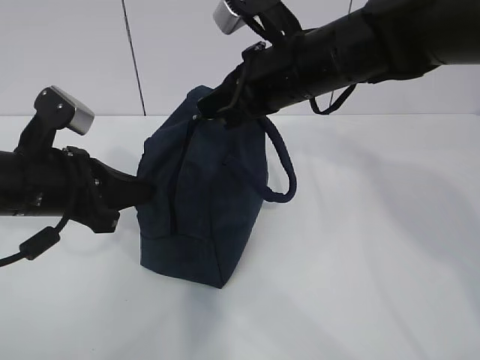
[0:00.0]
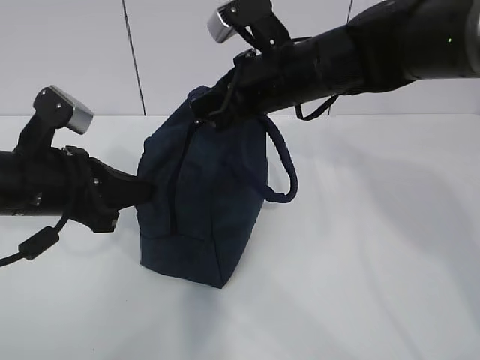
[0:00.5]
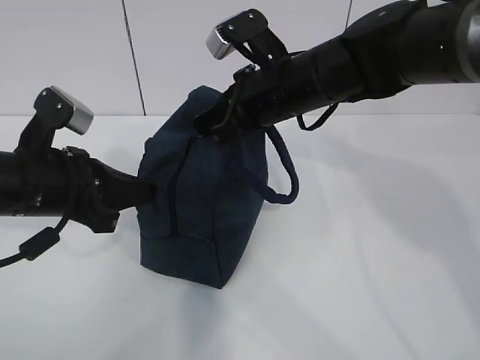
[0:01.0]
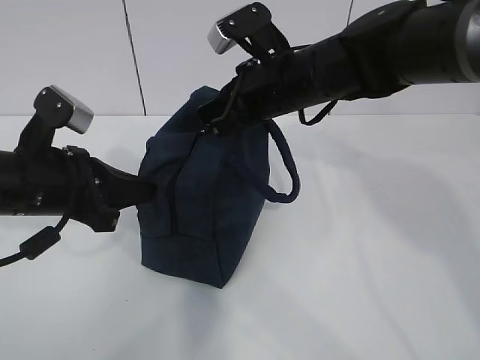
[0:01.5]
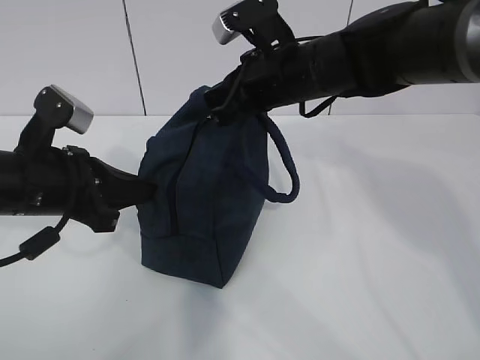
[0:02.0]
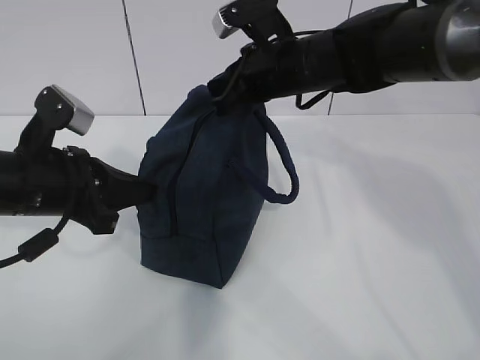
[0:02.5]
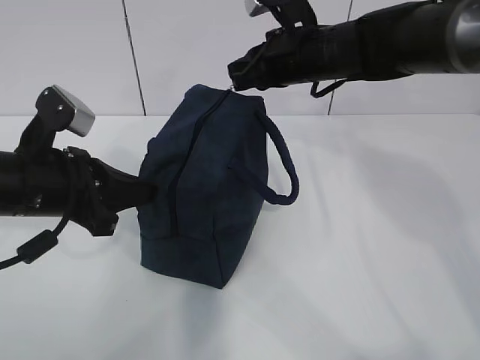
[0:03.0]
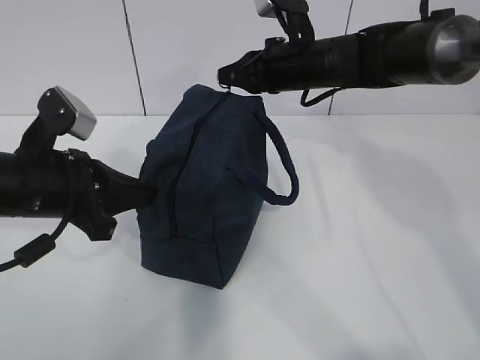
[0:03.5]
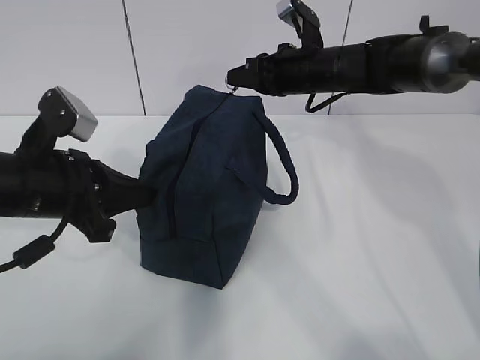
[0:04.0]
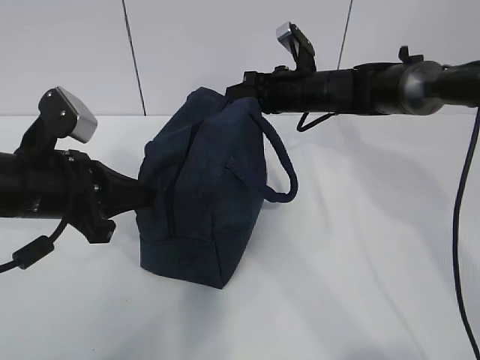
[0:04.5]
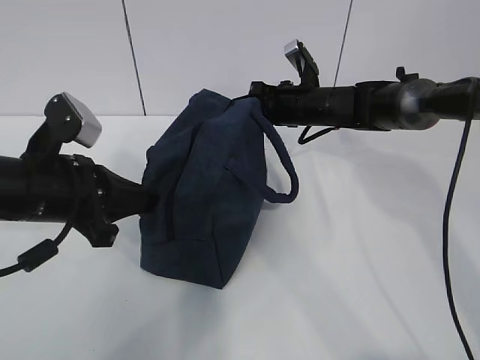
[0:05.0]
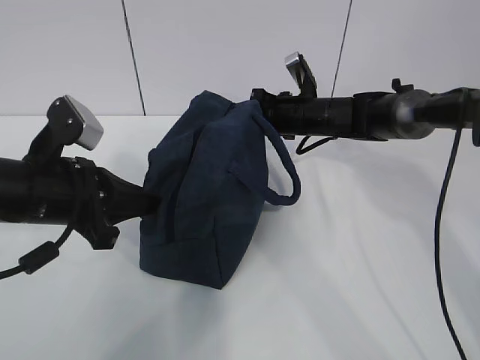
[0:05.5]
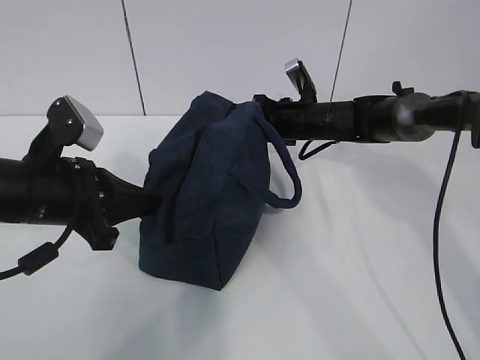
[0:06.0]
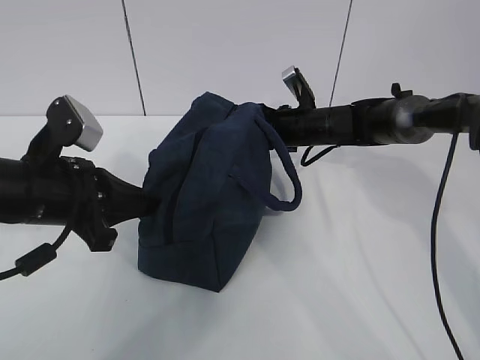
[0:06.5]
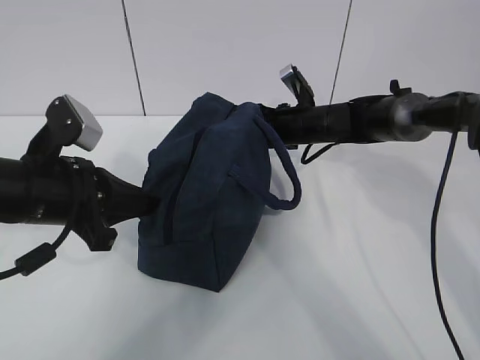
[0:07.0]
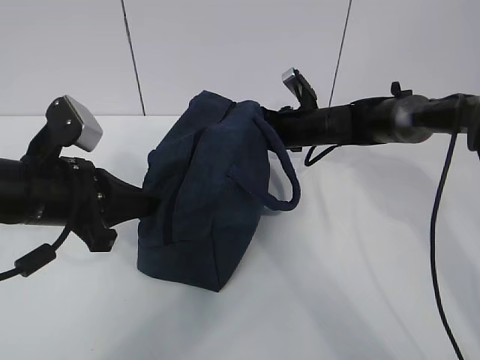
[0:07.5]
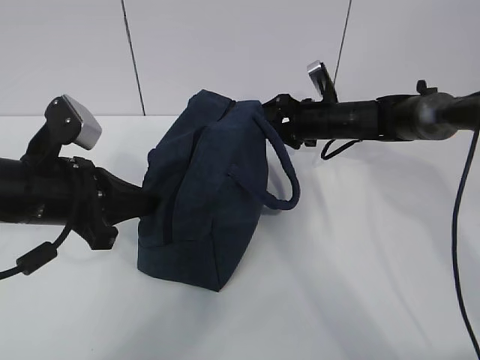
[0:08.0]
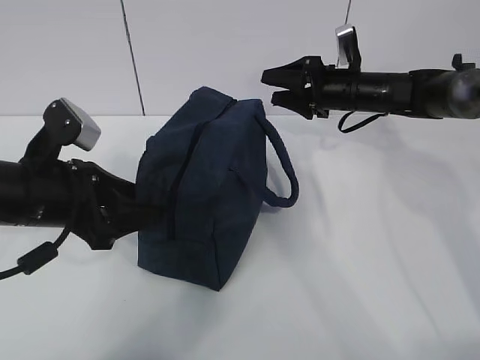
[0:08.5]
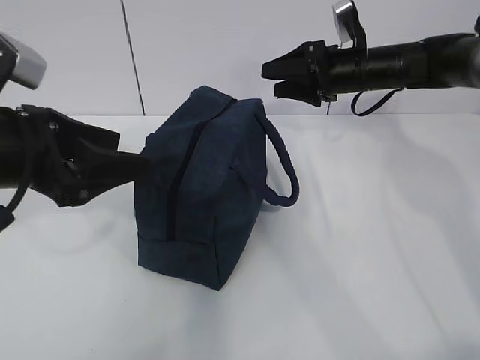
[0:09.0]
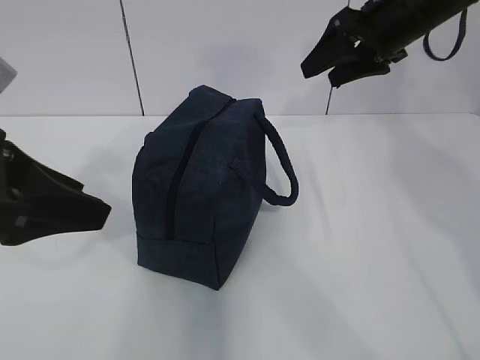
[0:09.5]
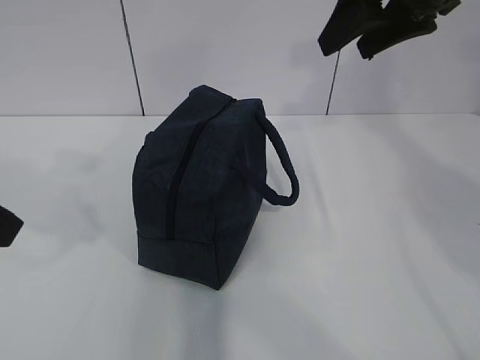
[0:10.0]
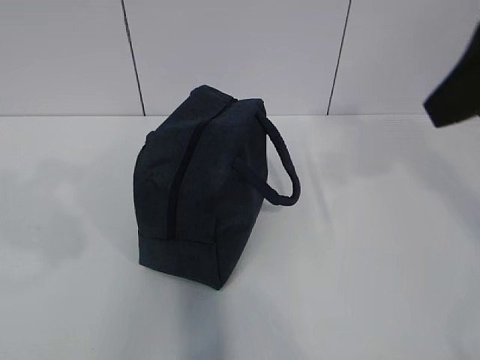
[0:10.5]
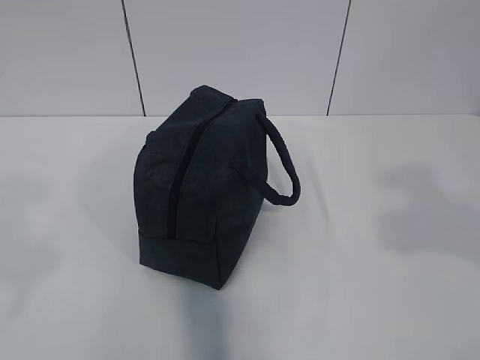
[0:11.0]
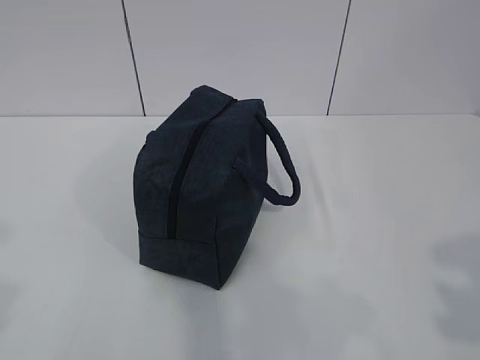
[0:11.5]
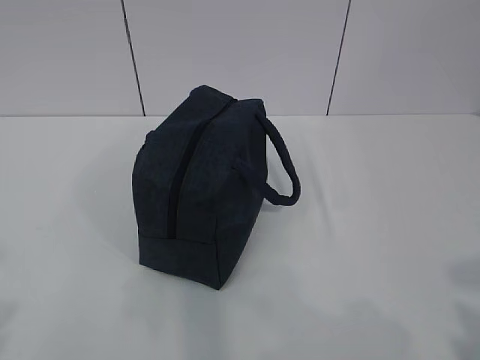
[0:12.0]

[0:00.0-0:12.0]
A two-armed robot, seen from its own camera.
0:00.0 to 0:02.0: The grippers move only a little.
0:02.0 to 0:04.0: The right gripper shifts some 10 cm forward.
0:04.0 to 0:06.0: The right gripper moves downward, about 10 cm.
0:06.0 to 0:08.0: The right gripper opens its fingers.
0:08.0 to 0:10.0: The right gripper is displaced upward and backward by approximately 30 cm; the left gripper moves upward and backward, some 15 cm, and opens up.
0:10.0 to 0:12.0: The right gripper travels backward by approximately 35 cm; the left gripper heads backward, covering some 15 cm.

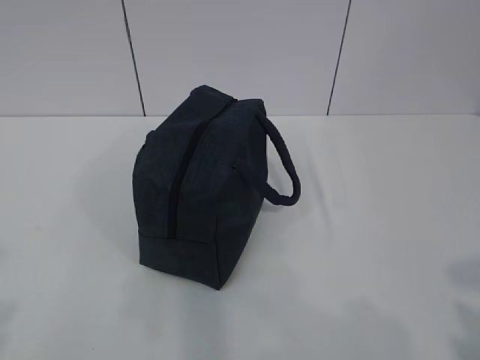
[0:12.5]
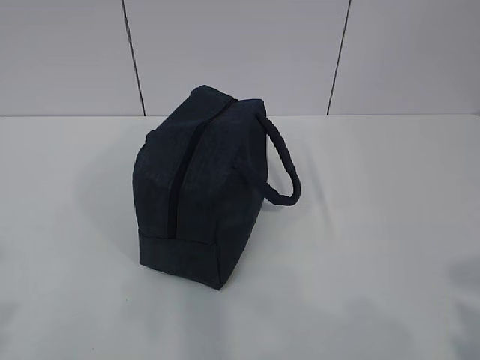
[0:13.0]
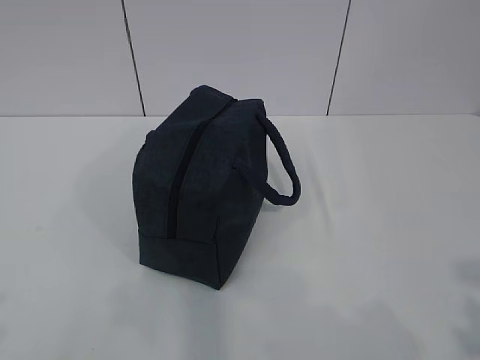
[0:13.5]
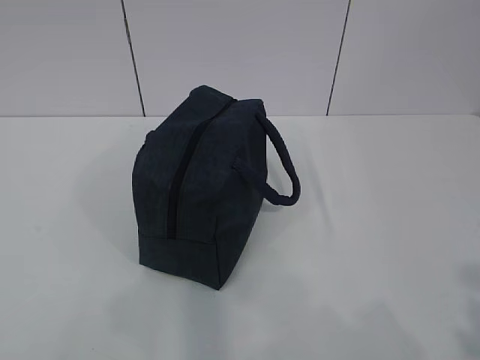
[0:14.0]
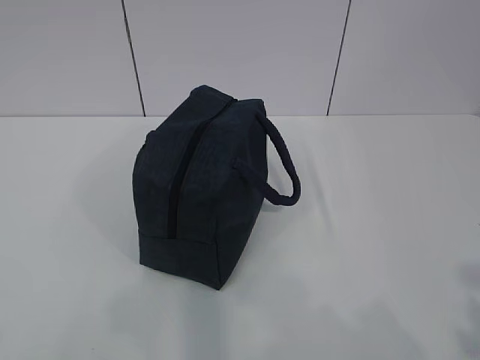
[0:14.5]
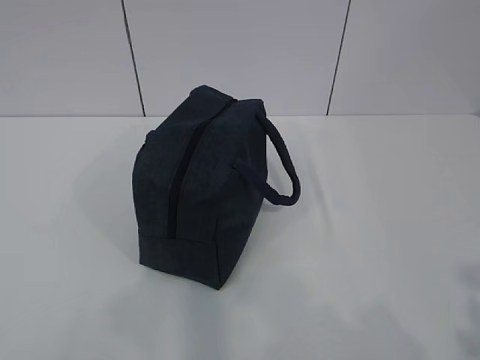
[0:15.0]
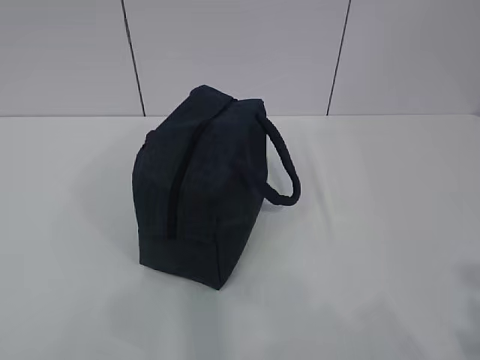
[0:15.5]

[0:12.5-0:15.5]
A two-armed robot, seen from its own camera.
0:14.0 to 0:15.5: The two grippers keep their place.
